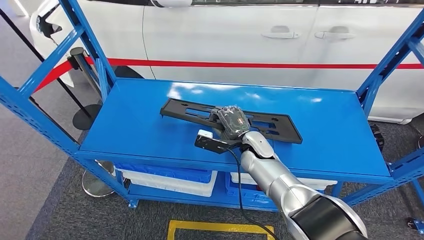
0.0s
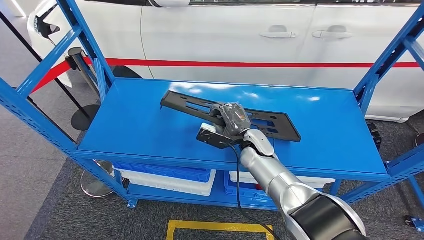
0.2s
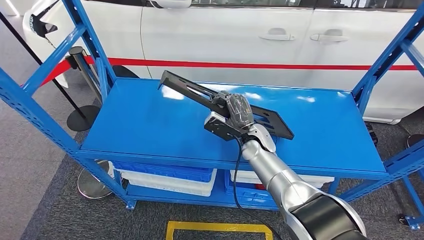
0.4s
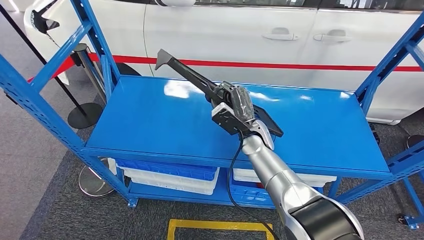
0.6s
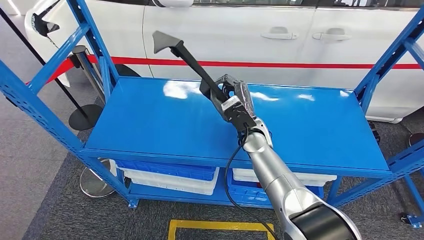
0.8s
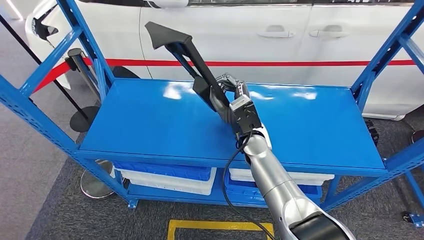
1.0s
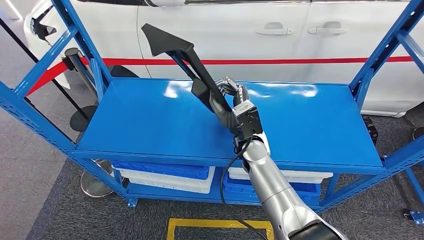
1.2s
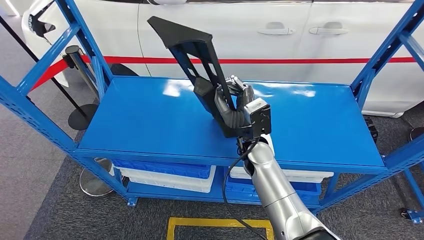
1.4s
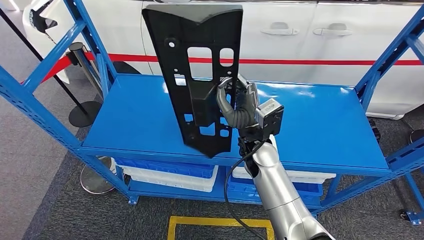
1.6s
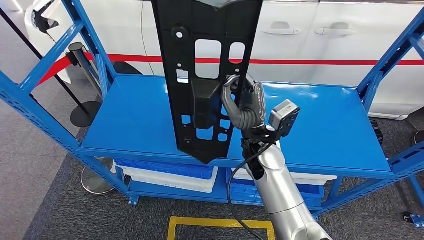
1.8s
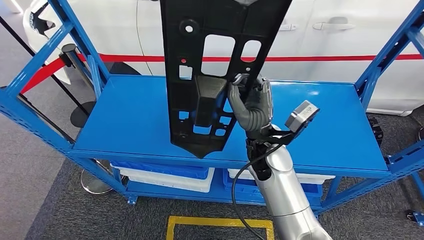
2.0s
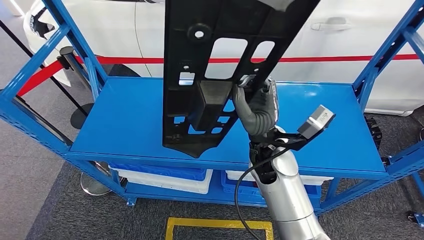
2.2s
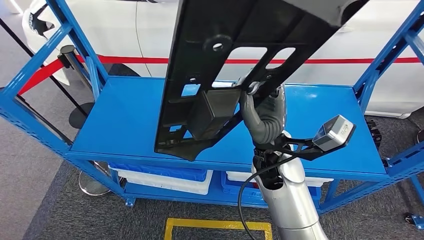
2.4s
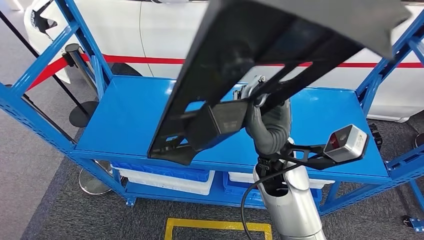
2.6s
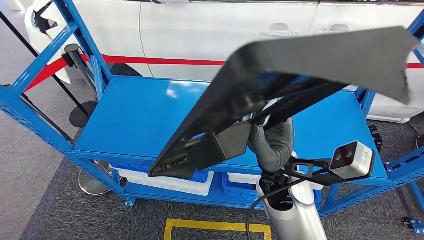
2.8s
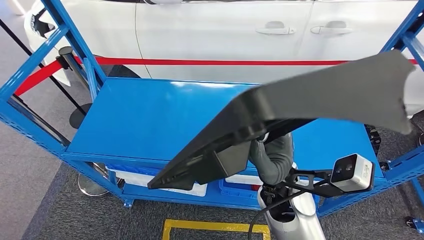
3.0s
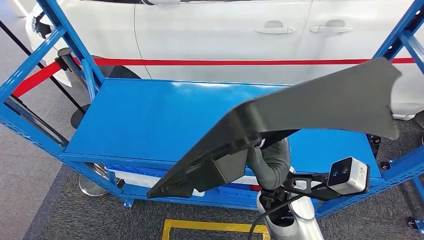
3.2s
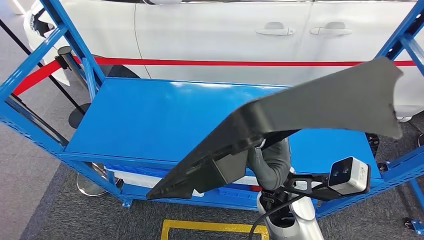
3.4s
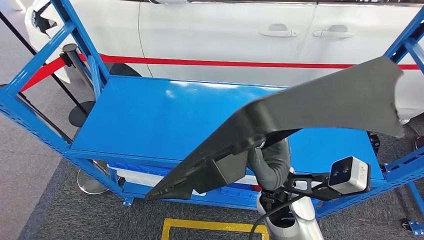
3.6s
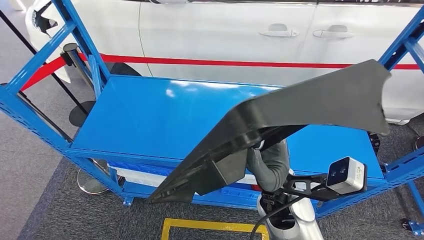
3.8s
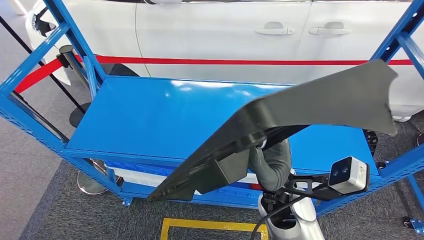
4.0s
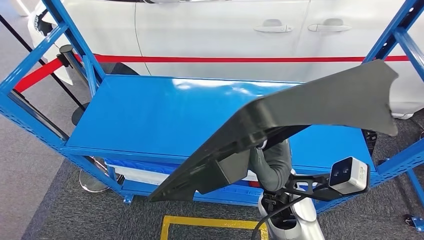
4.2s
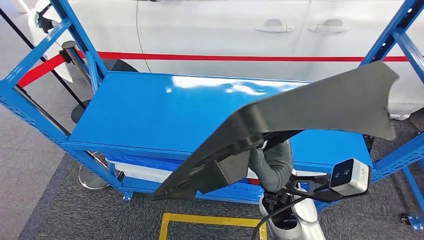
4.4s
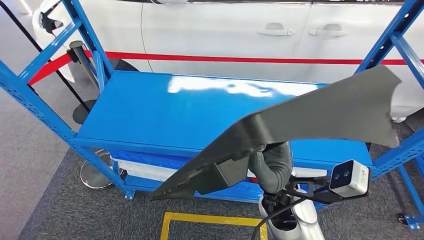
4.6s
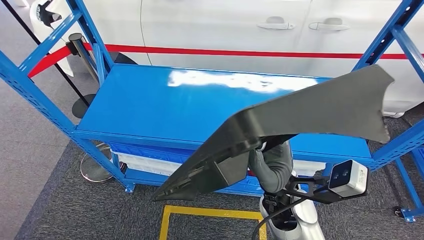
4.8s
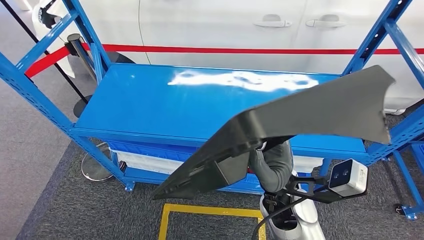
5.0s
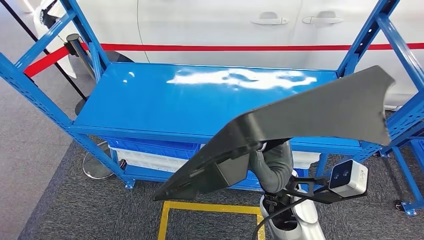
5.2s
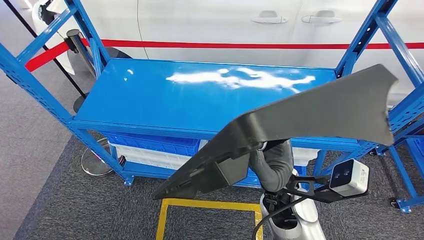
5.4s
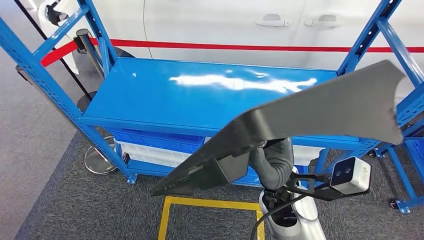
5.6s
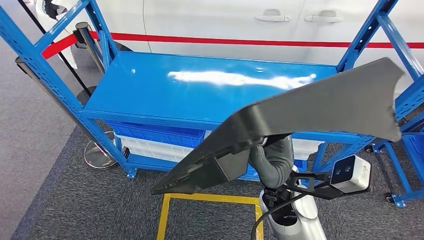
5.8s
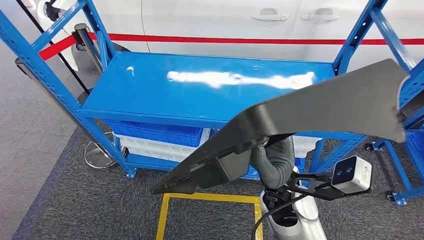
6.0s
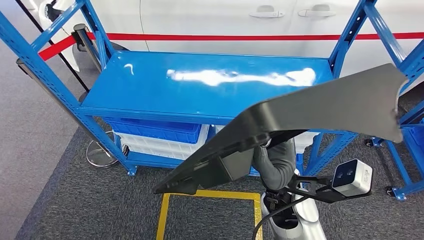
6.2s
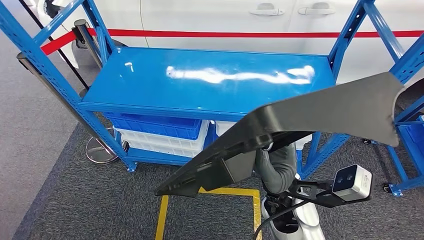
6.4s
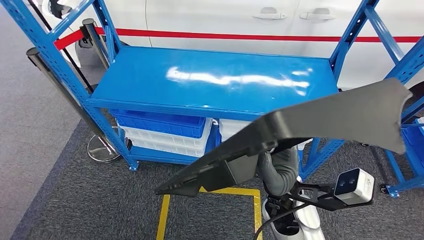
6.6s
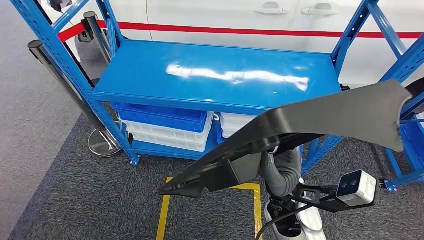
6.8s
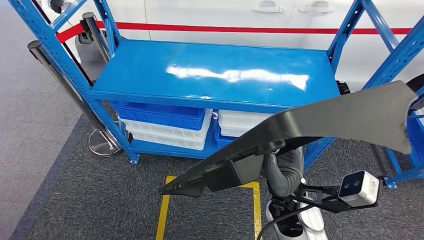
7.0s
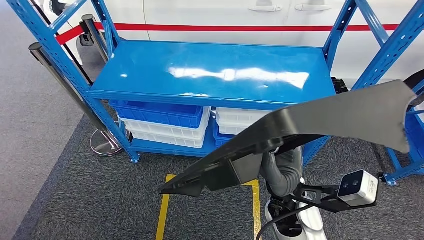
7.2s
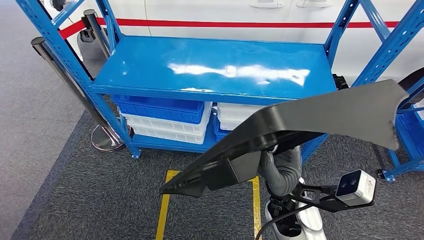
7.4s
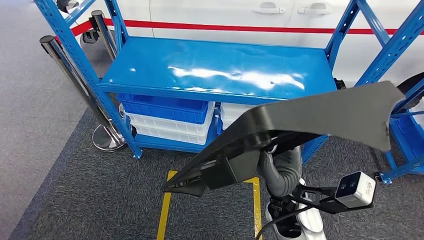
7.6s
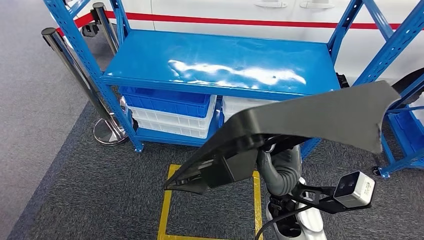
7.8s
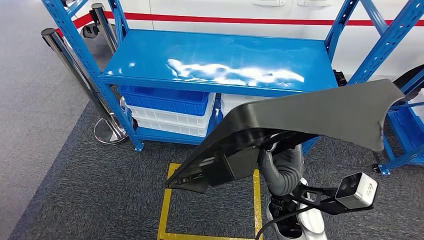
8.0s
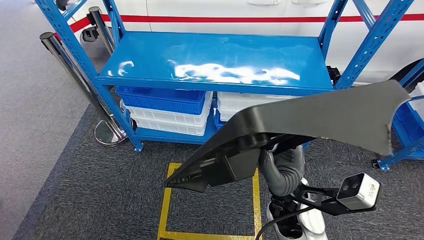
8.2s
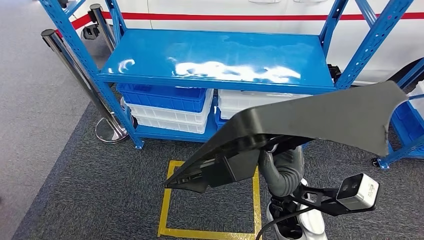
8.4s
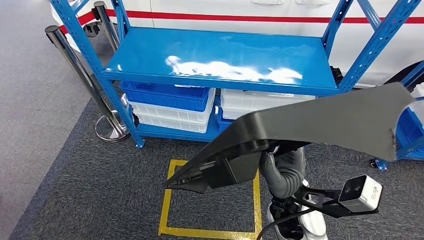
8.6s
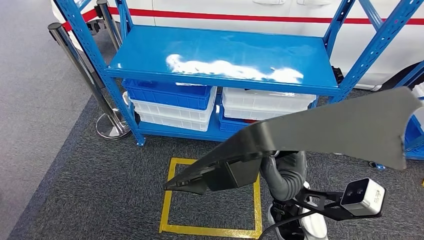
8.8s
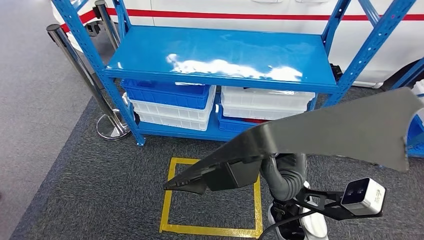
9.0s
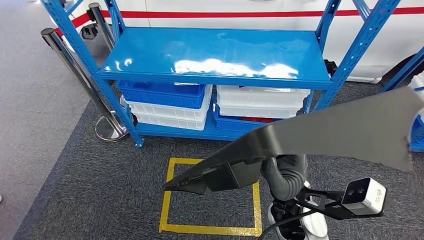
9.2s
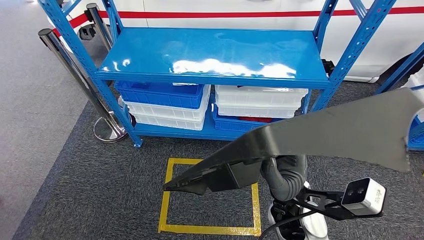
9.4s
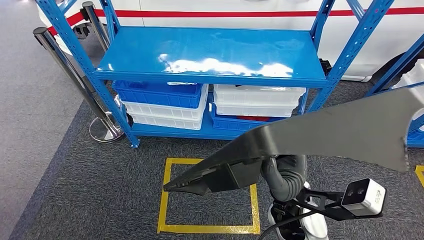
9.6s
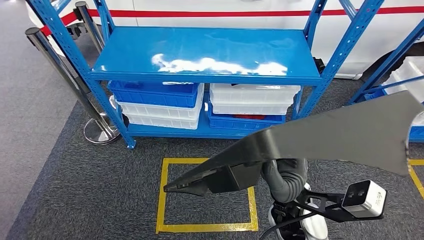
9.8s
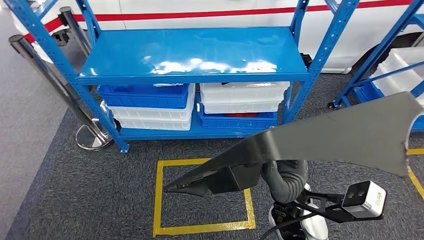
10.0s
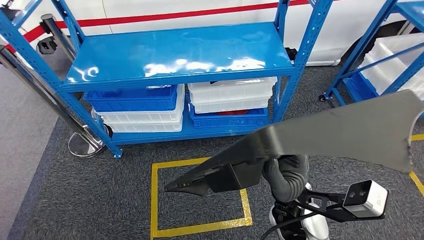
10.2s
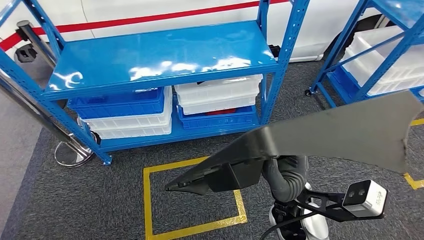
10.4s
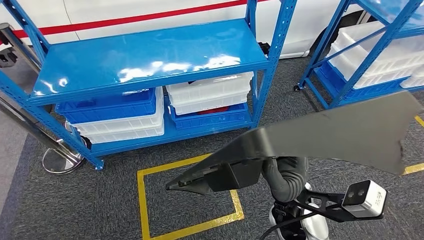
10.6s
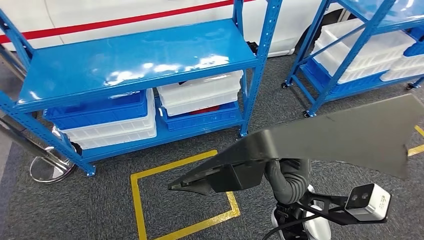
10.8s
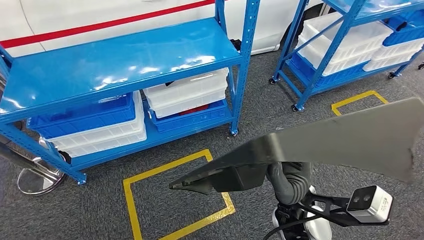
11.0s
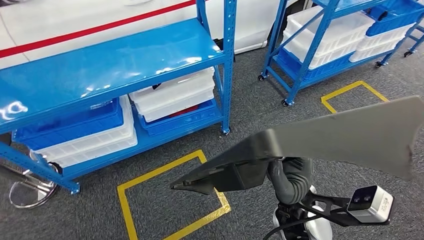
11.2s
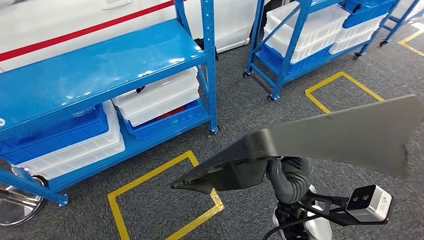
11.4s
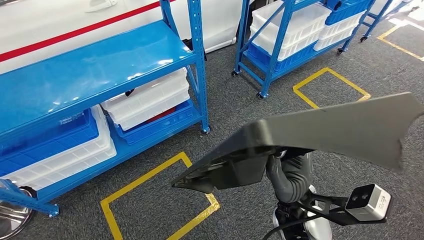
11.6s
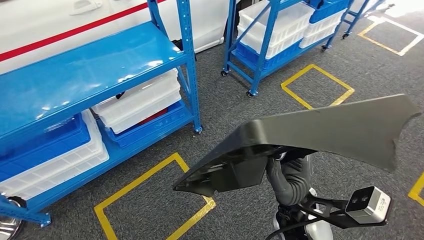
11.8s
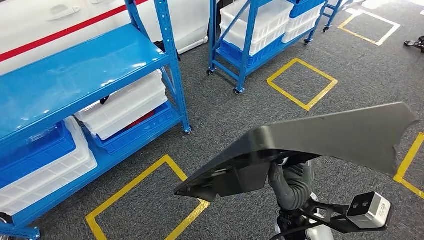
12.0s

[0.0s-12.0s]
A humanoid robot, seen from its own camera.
Step, 0.0s to 2.6s: Pick up the large material from the shelf.

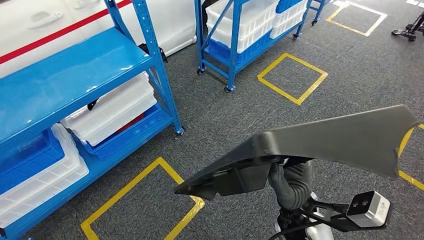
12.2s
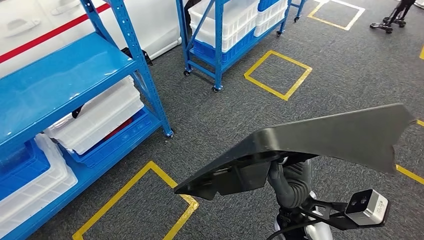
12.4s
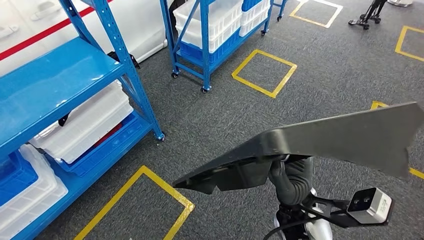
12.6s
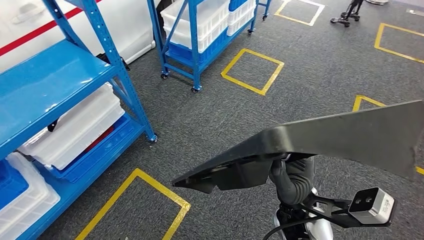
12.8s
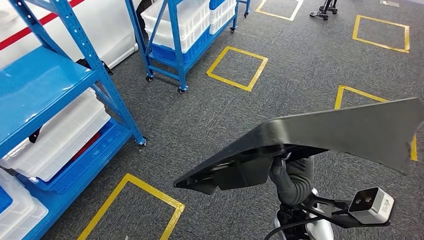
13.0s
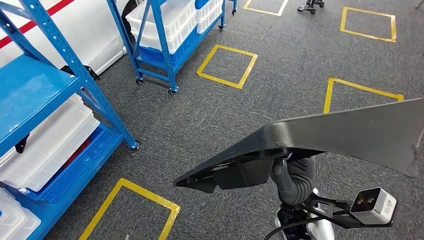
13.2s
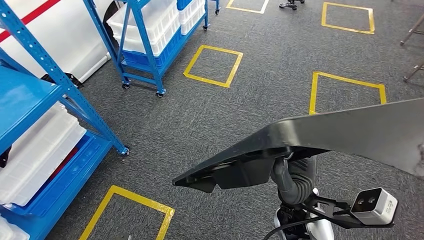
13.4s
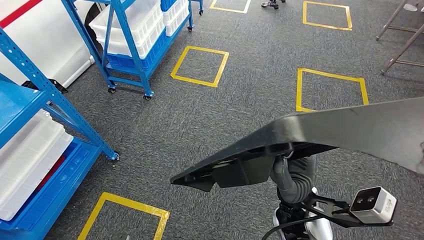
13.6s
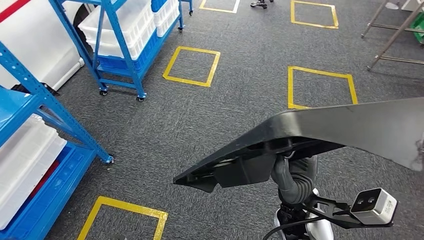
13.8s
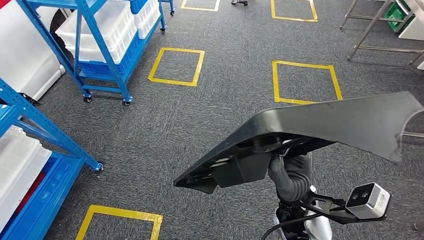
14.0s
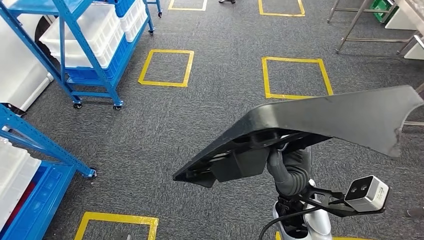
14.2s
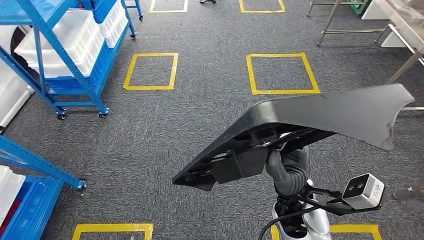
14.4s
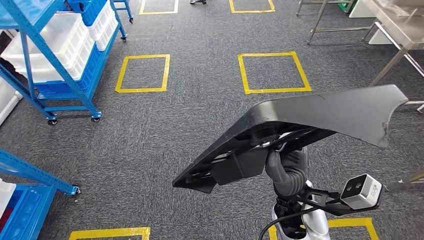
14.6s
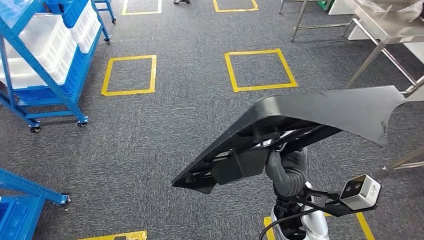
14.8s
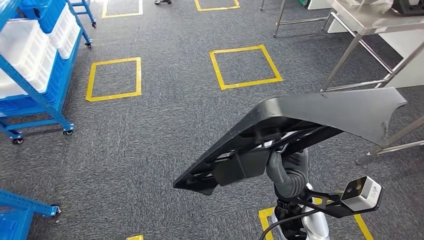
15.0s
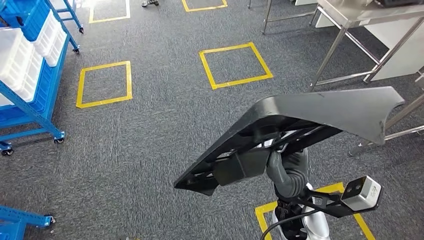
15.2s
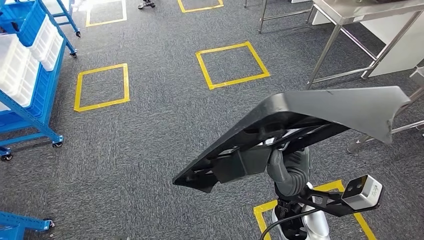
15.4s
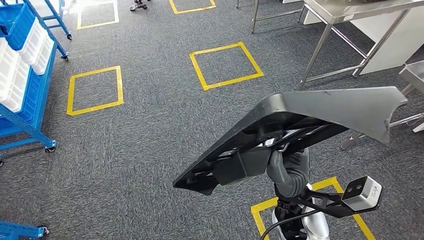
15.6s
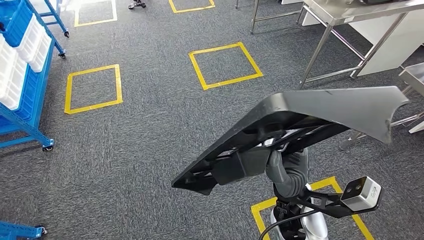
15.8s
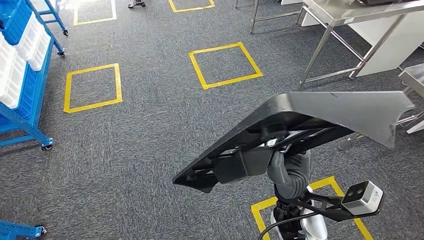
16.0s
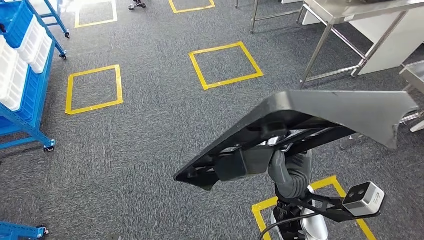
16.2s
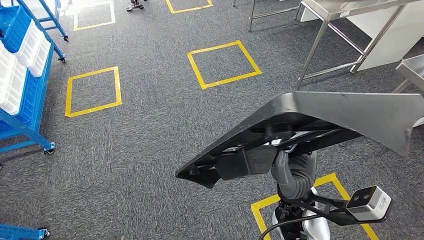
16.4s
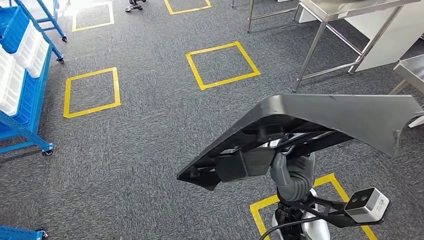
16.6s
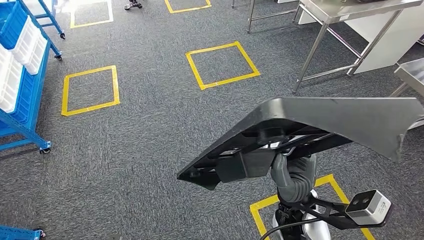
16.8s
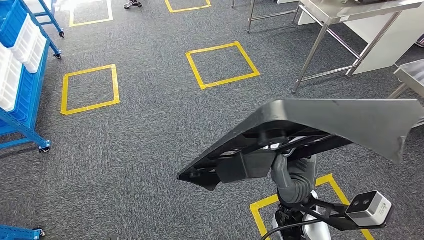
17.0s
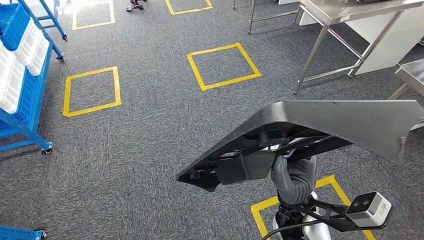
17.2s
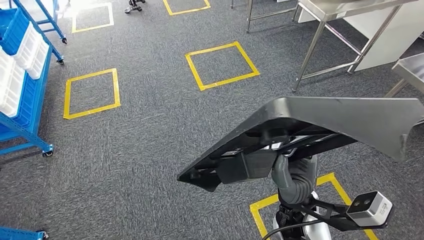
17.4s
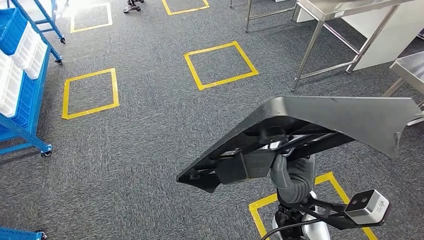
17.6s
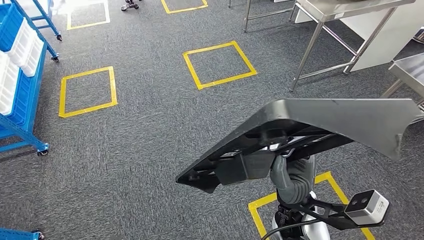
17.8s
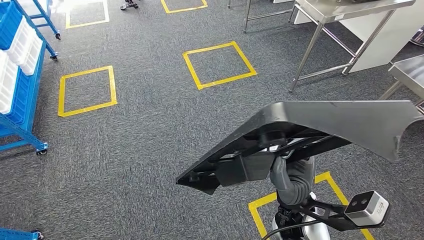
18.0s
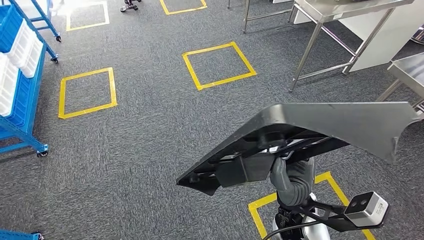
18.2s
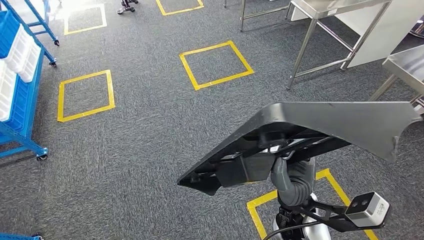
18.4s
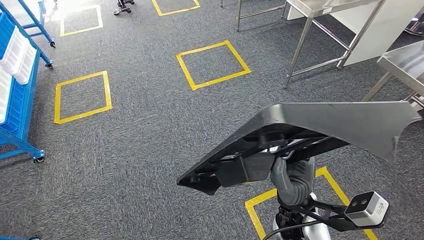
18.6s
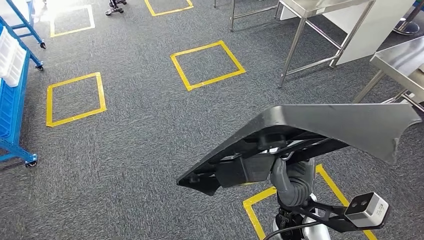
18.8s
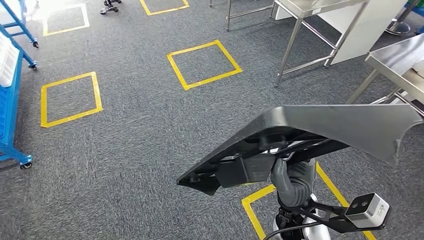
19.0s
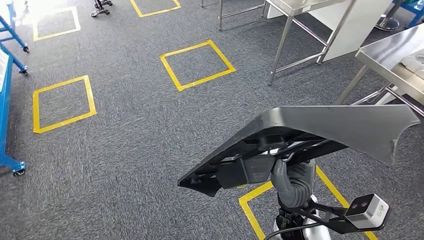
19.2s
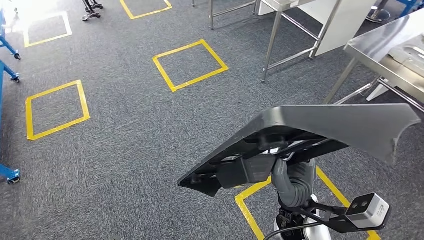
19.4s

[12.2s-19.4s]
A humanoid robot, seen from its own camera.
16.6s to 18.0s: The two hands keep their place.
